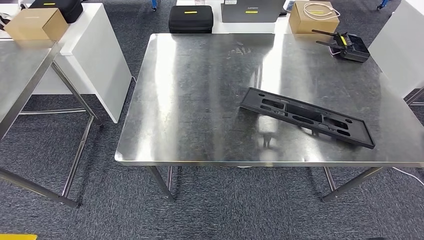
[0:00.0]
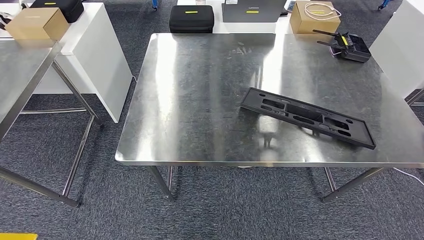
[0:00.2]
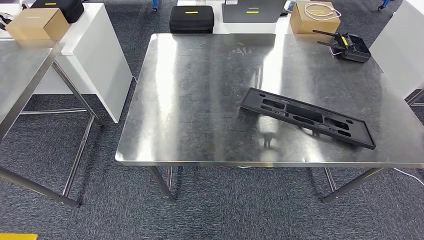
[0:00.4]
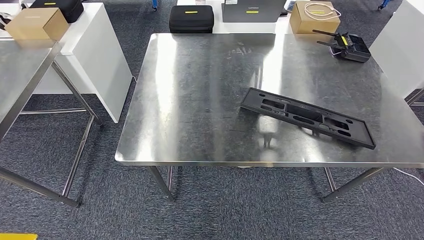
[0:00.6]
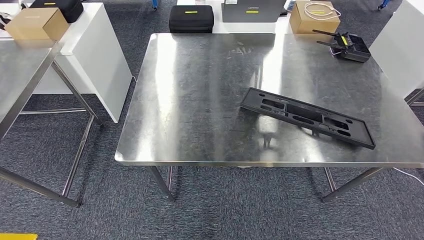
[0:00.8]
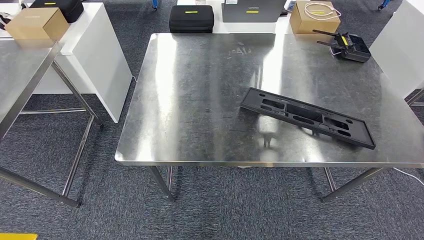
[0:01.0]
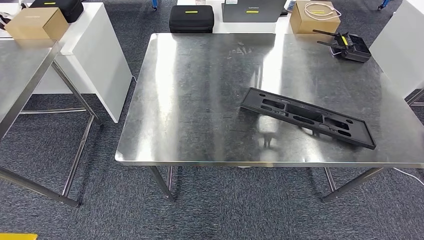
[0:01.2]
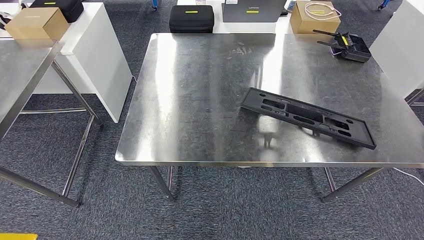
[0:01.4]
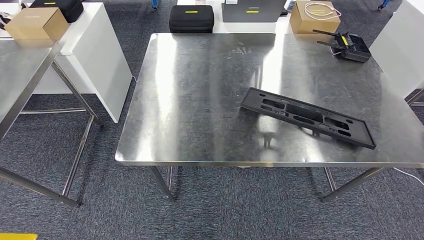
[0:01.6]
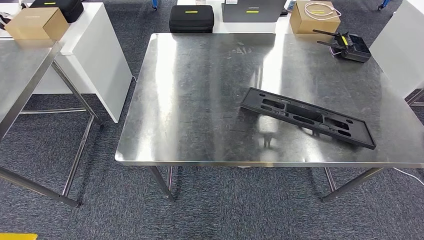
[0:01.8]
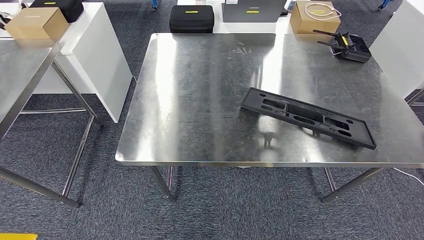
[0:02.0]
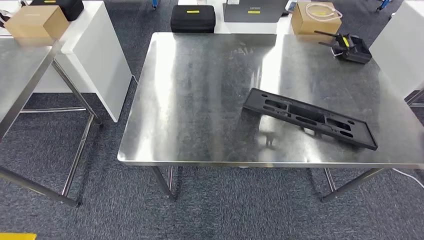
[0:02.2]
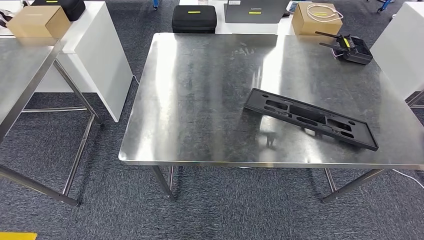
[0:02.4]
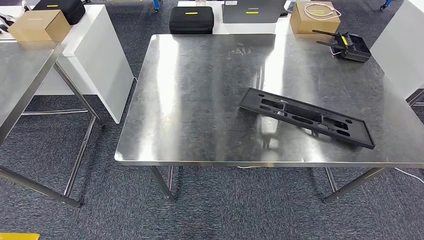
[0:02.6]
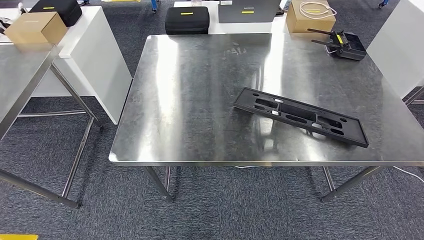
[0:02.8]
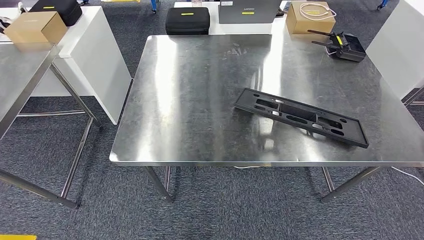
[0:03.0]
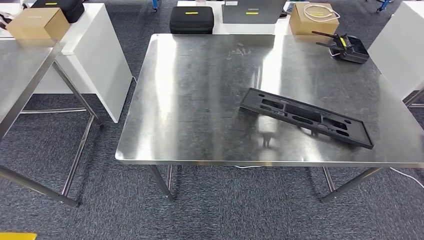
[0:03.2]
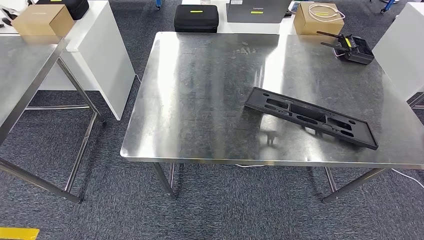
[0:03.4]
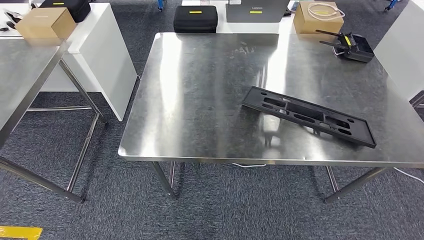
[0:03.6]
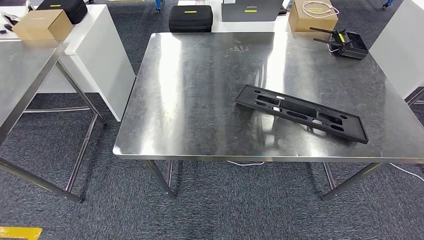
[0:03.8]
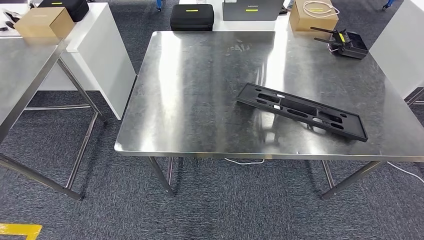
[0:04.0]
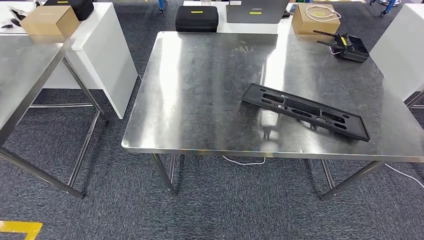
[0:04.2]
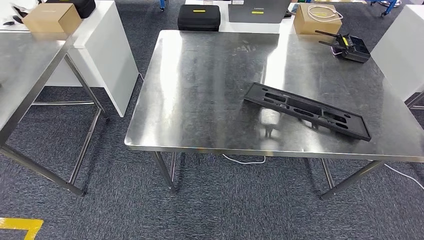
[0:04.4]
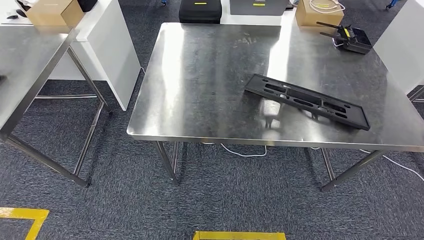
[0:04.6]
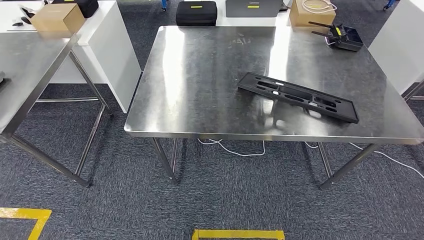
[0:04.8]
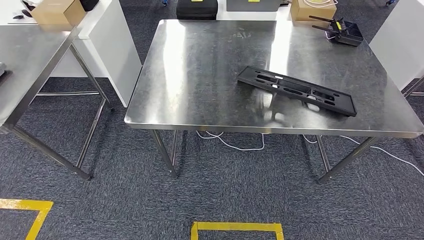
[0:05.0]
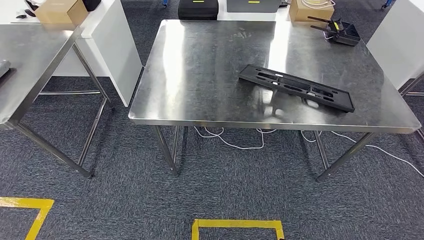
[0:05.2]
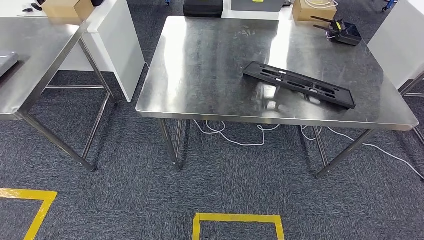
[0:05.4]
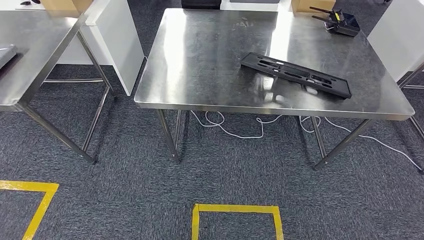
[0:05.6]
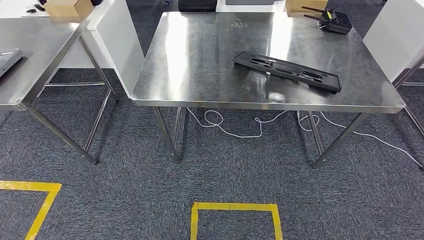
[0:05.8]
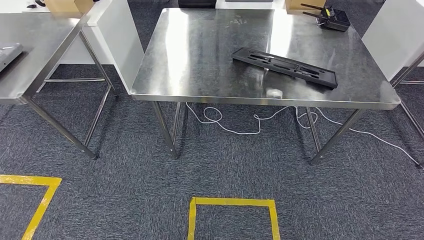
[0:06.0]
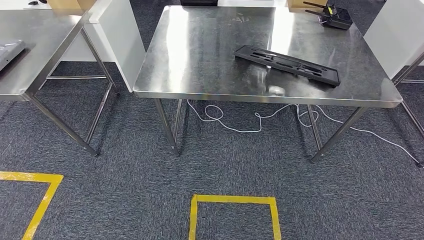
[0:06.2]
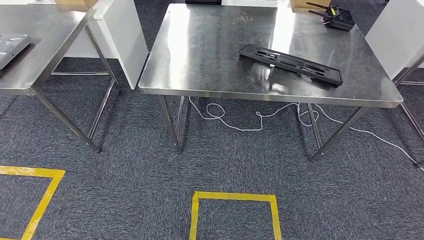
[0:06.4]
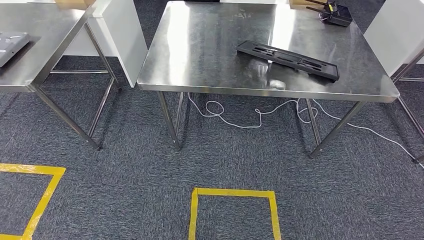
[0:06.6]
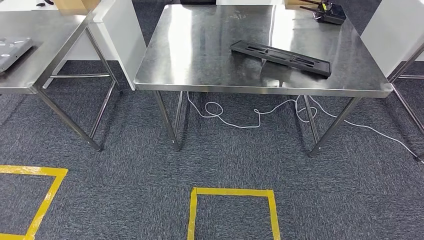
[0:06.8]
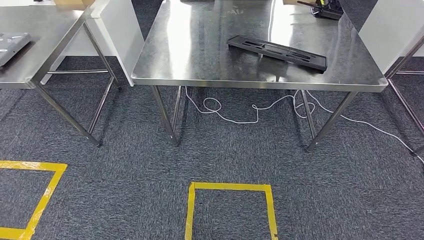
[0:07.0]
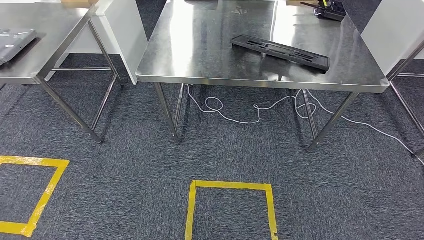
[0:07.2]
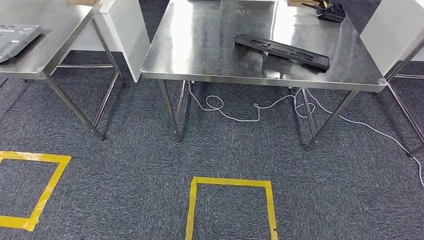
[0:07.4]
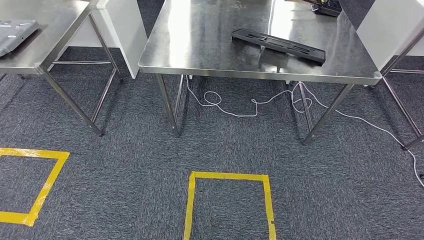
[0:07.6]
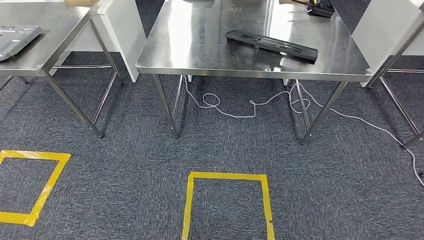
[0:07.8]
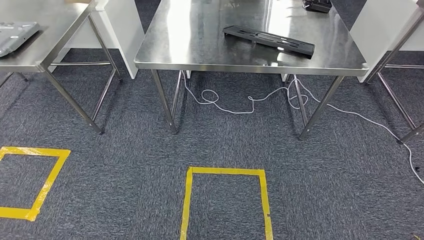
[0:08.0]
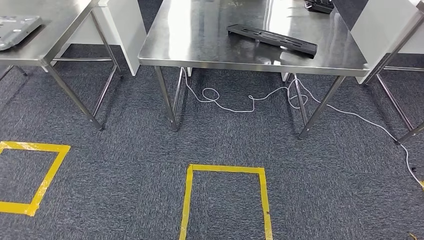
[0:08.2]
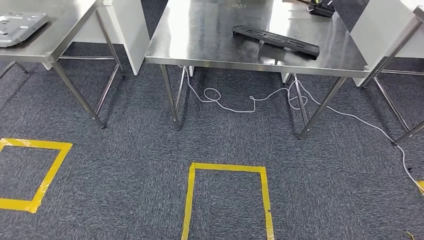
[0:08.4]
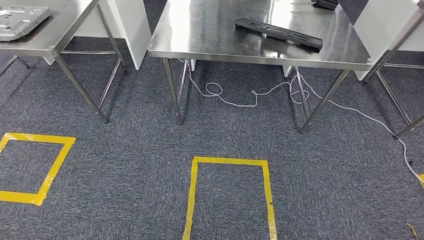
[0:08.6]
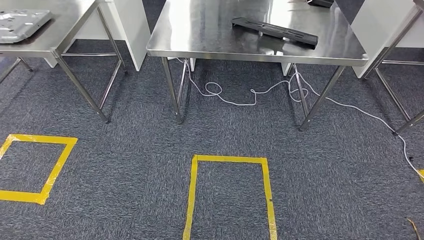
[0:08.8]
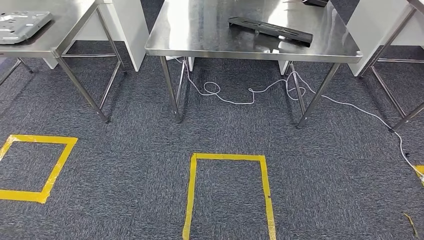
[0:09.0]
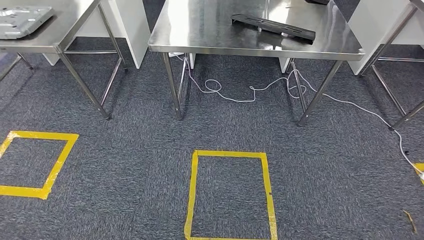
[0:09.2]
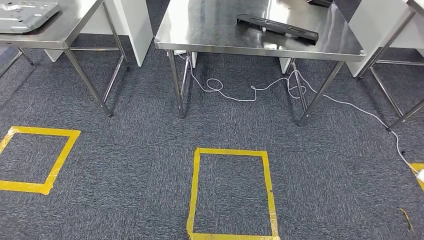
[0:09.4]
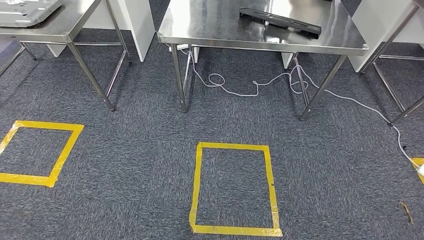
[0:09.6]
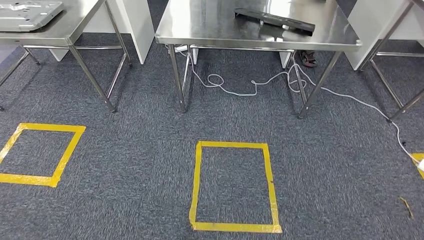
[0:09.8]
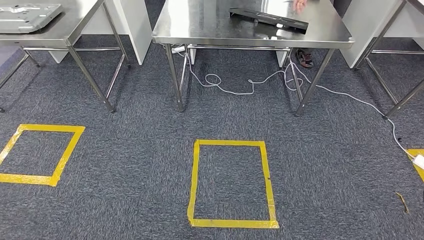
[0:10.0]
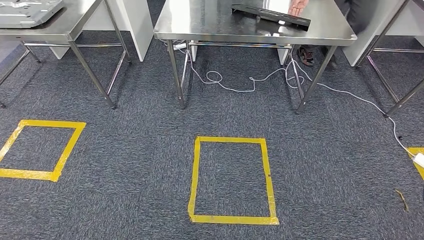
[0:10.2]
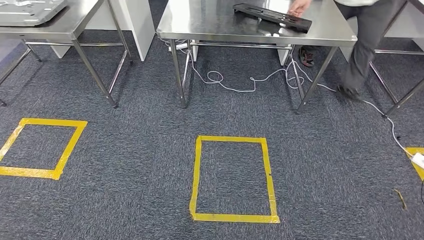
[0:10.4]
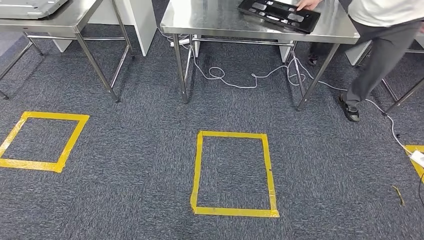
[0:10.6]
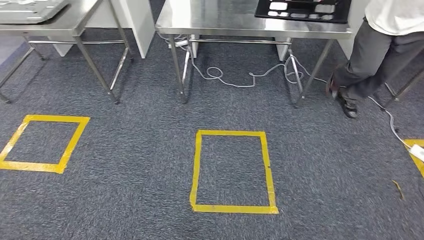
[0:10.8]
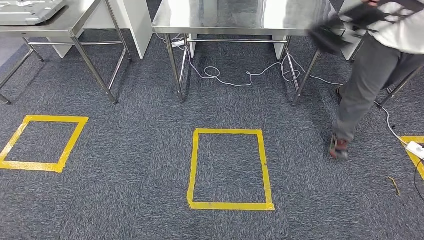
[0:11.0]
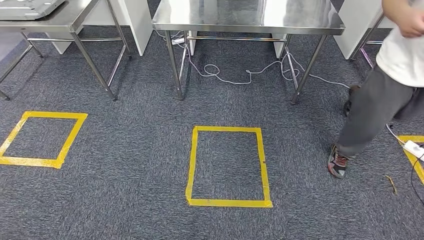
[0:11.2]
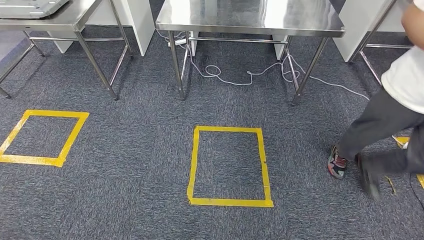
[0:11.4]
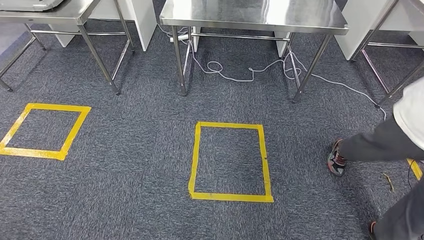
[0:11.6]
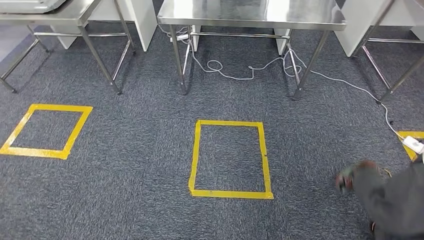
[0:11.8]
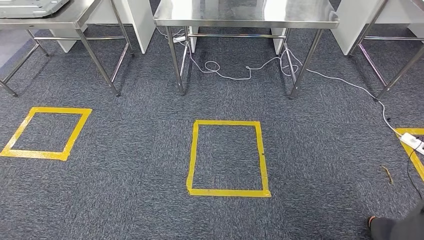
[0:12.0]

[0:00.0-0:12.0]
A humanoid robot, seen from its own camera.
0.0 to 1.6 s: The right hand moves downward and to the left, approximately 25 cm.
1.6 to 3.0 s: The hands move only a little.

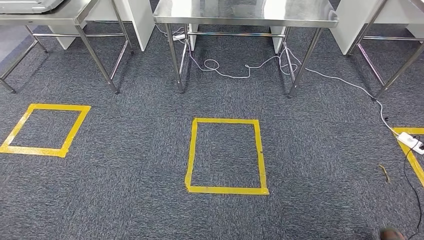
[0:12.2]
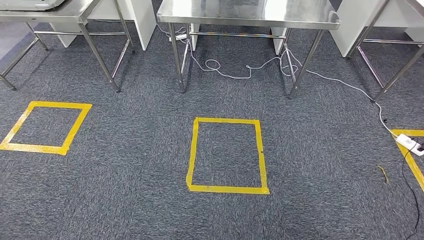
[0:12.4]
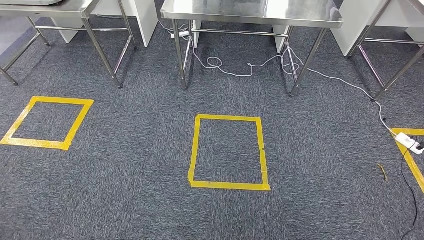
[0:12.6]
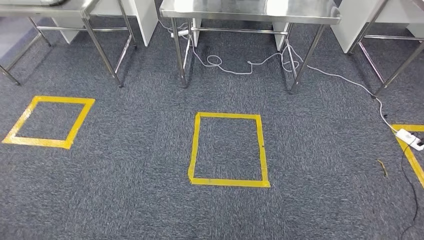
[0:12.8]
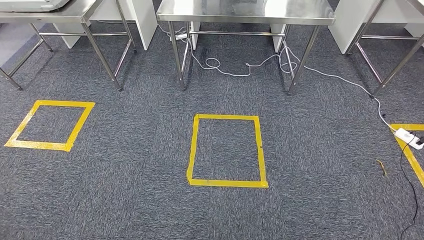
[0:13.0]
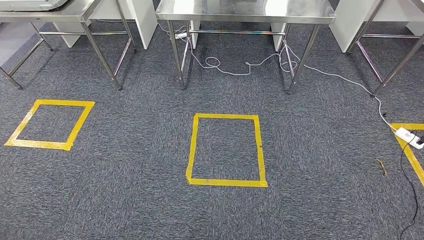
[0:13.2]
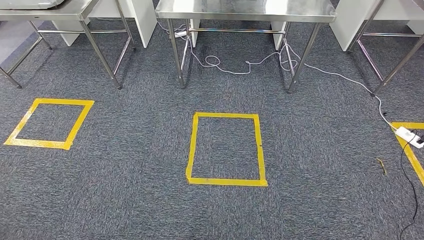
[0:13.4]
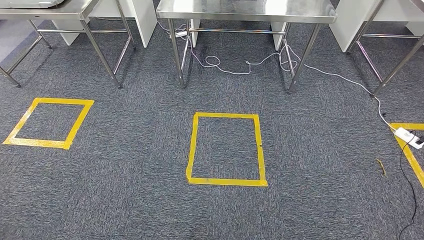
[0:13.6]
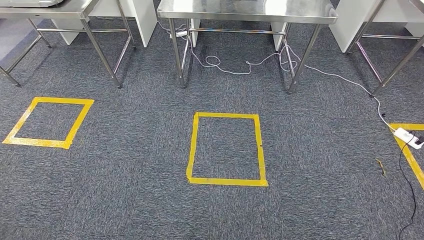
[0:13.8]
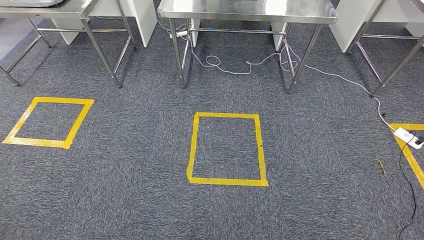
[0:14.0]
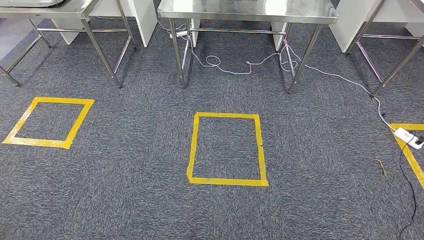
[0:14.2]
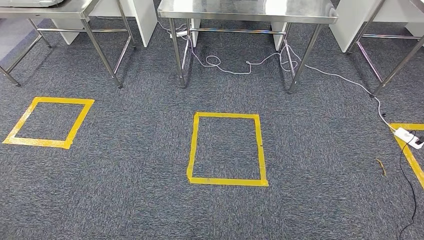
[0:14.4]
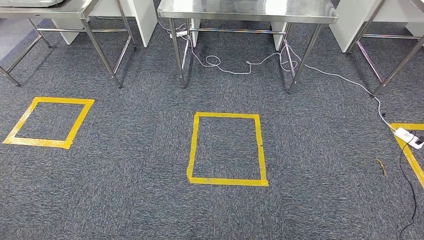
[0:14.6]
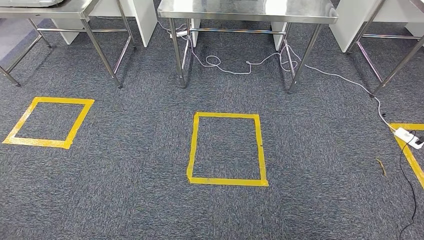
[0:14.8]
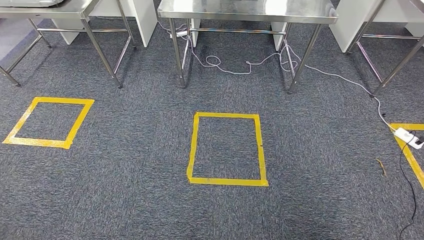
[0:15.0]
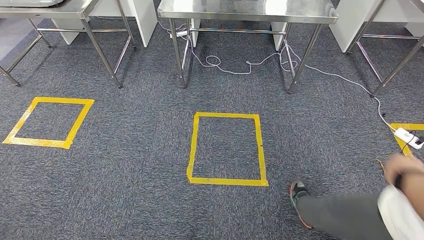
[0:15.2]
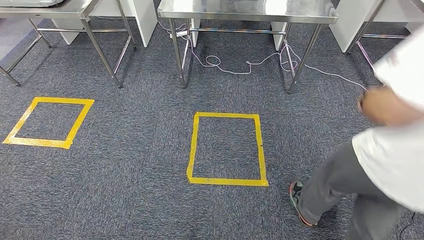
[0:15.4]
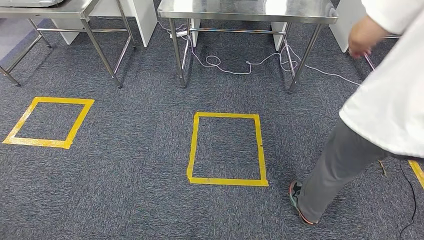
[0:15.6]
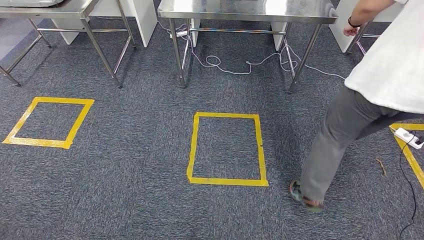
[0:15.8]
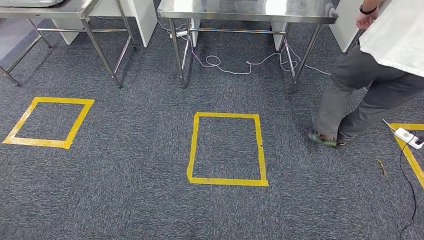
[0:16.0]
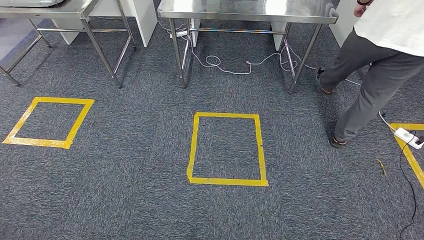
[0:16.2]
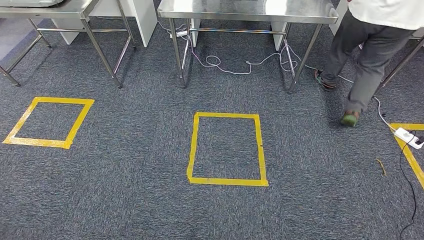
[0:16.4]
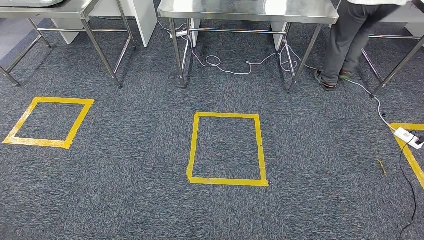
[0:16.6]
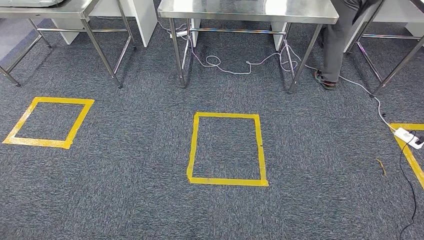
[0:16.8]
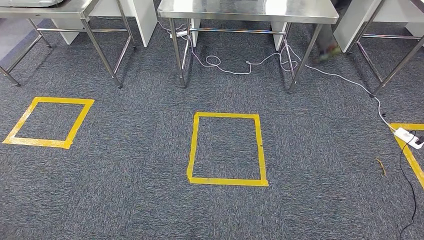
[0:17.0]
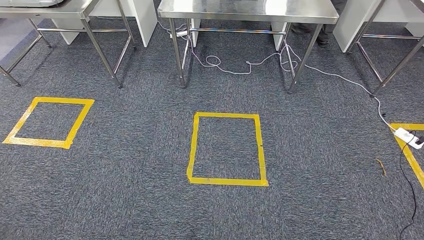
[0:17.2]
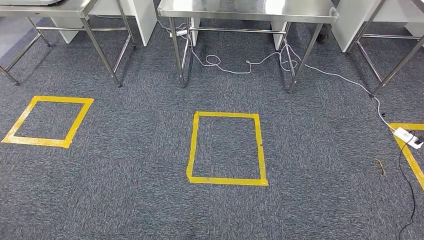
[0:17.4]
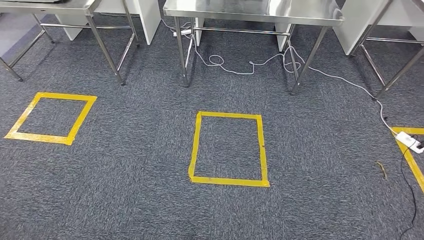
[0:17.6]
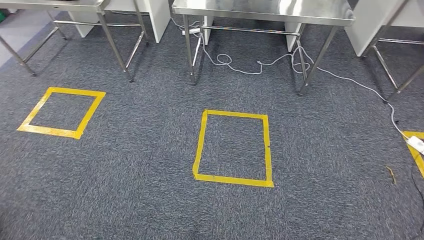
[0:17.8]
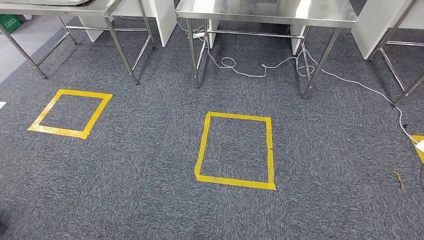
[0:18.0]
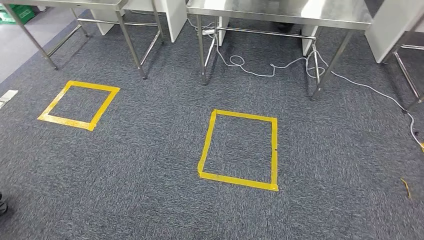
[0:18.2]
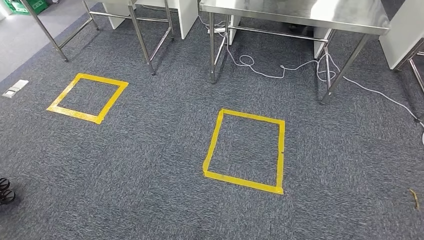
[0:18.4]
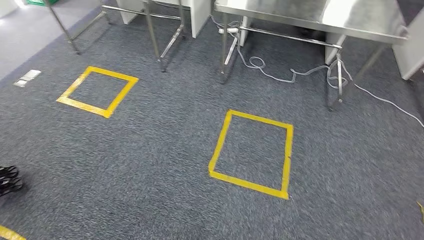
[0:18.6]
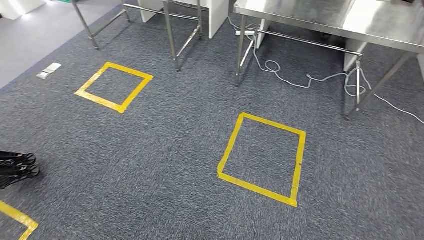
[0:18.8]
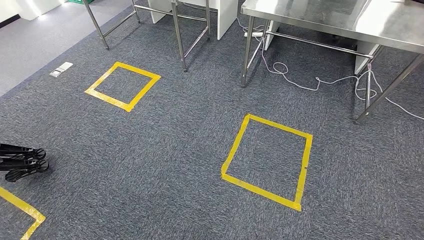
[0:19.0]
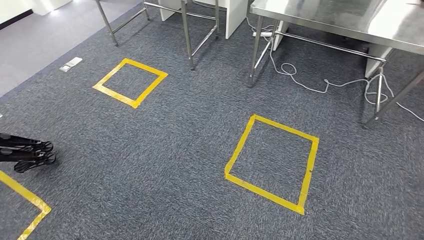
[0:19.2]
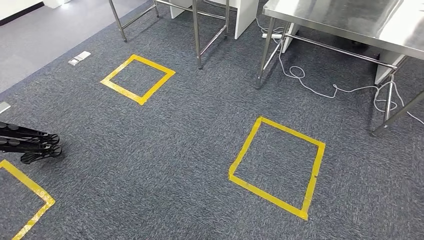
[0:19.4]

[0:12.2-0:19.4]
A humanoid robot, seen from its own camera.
12.2 to 15.0 s: Neither hand changes place.
15.0 to 16.6 s: Neither hand changes place.
